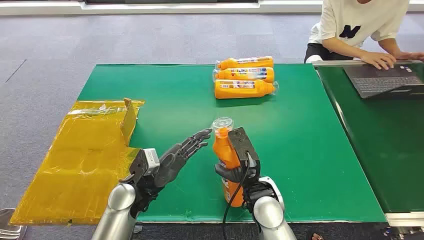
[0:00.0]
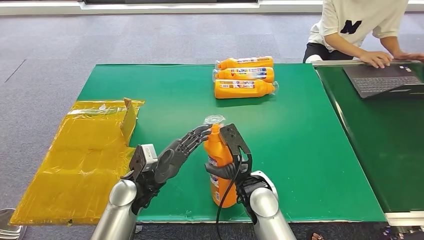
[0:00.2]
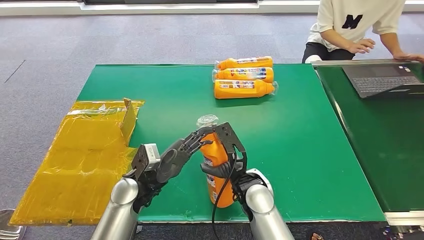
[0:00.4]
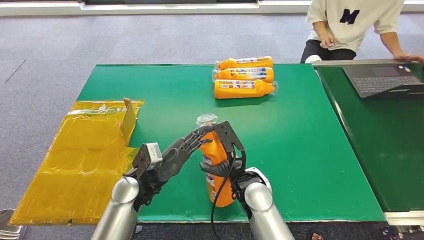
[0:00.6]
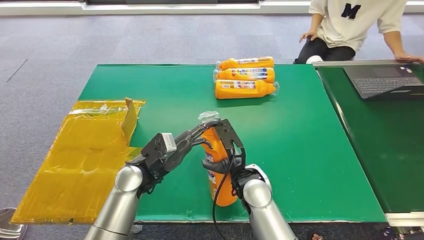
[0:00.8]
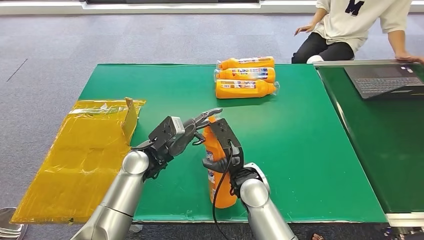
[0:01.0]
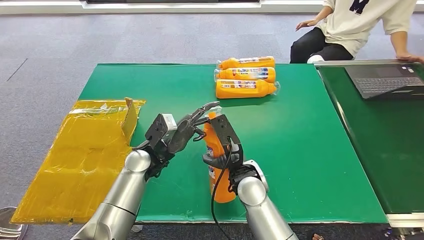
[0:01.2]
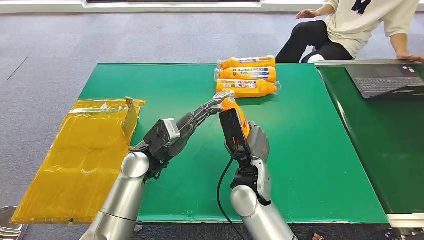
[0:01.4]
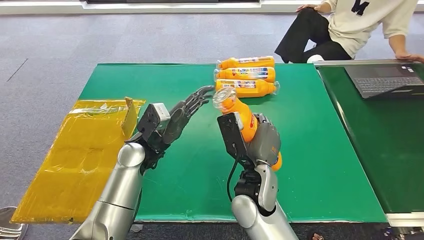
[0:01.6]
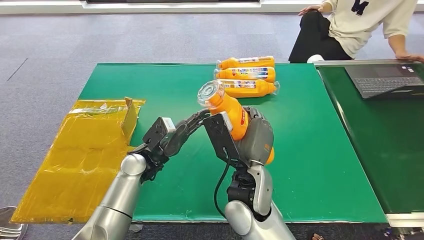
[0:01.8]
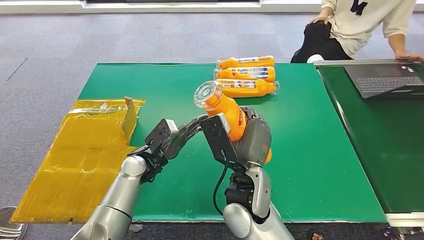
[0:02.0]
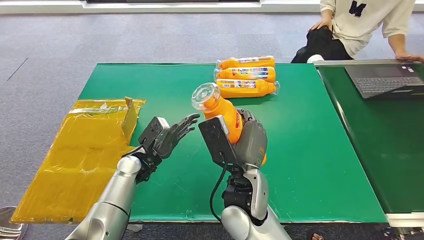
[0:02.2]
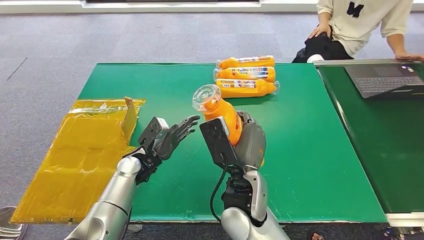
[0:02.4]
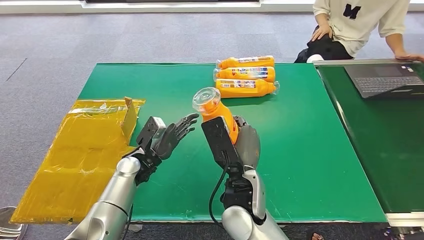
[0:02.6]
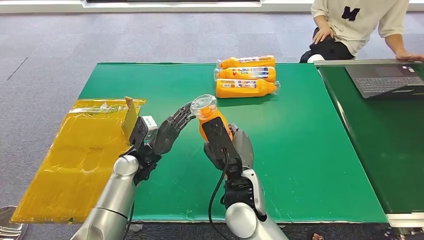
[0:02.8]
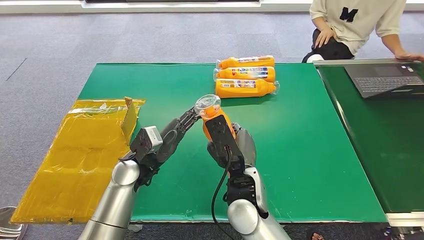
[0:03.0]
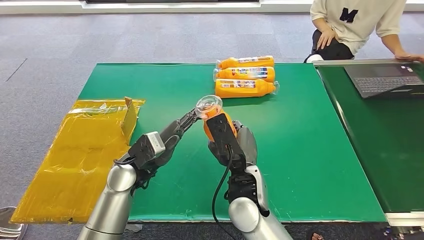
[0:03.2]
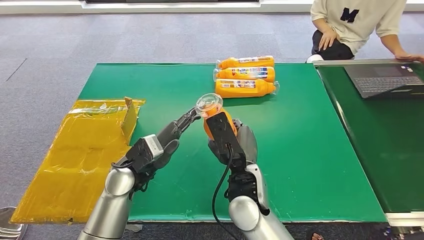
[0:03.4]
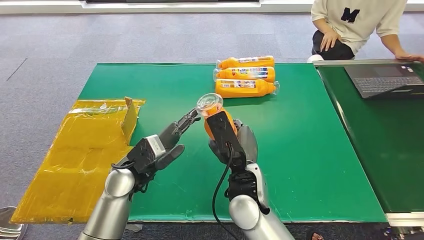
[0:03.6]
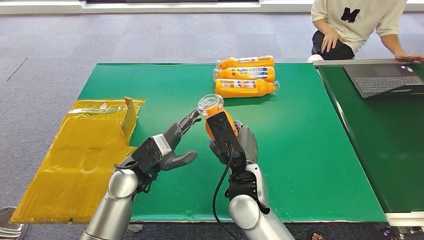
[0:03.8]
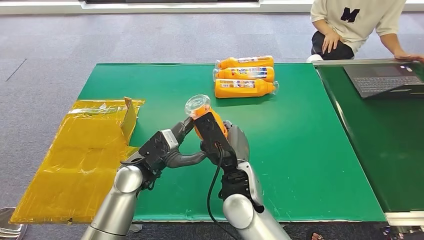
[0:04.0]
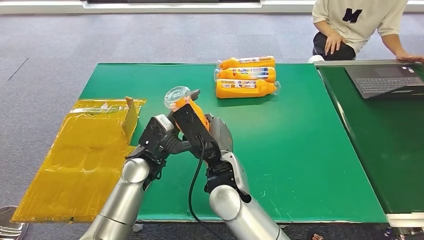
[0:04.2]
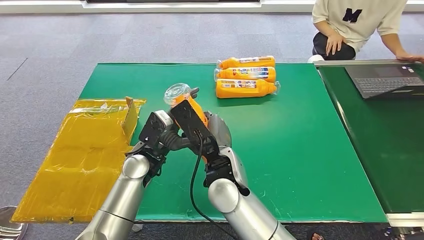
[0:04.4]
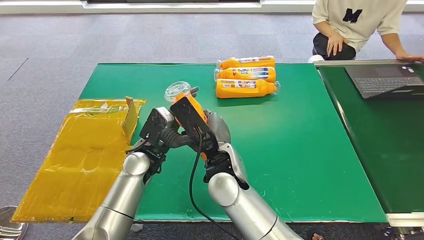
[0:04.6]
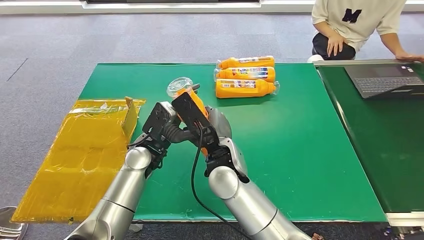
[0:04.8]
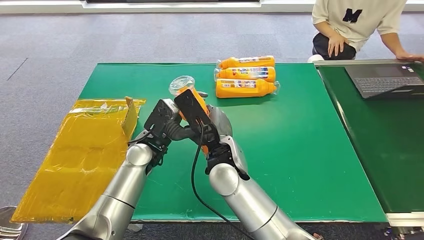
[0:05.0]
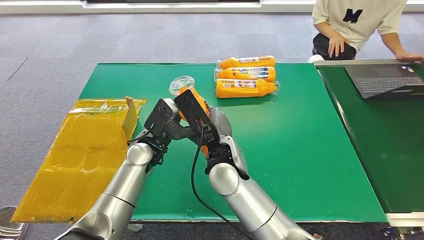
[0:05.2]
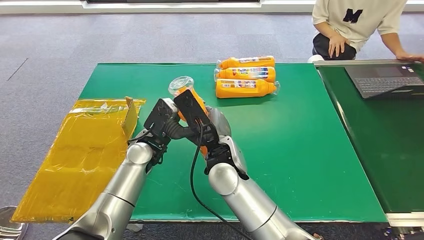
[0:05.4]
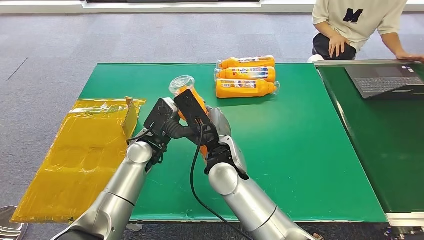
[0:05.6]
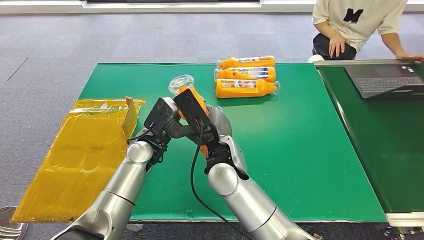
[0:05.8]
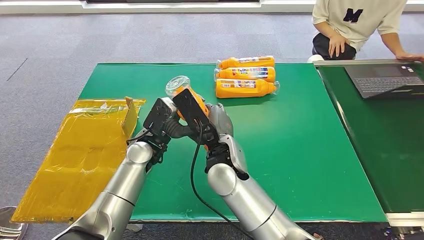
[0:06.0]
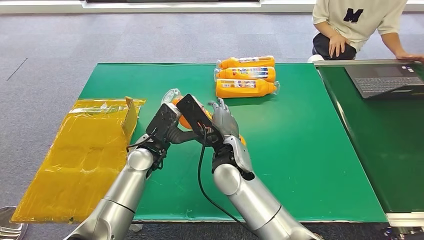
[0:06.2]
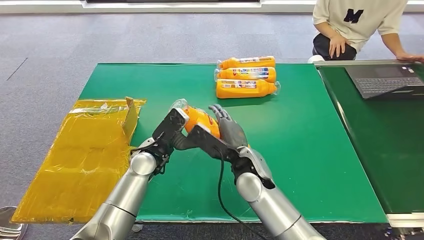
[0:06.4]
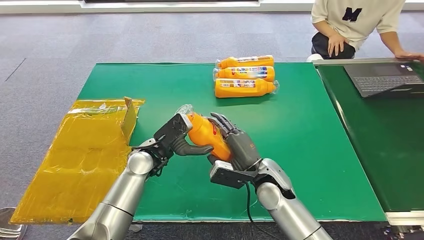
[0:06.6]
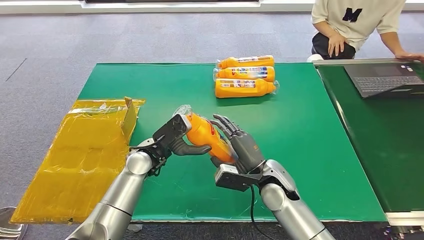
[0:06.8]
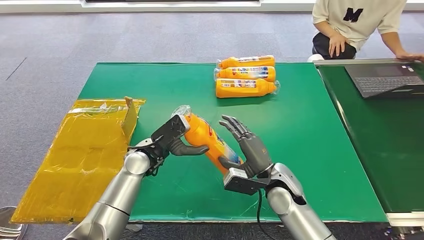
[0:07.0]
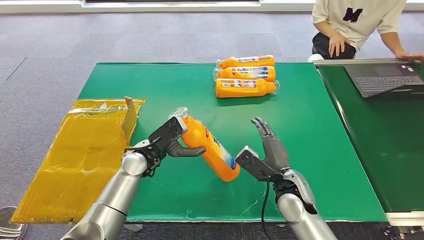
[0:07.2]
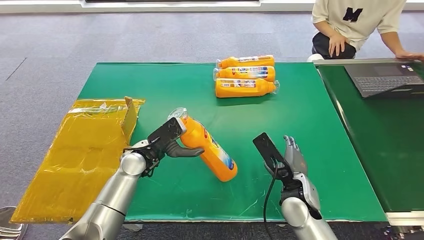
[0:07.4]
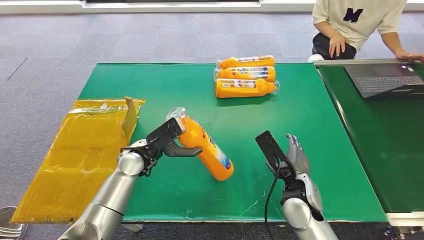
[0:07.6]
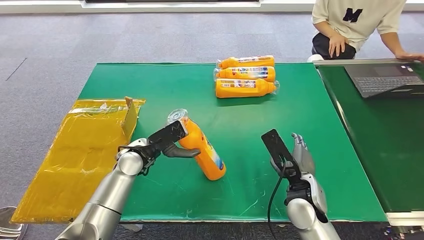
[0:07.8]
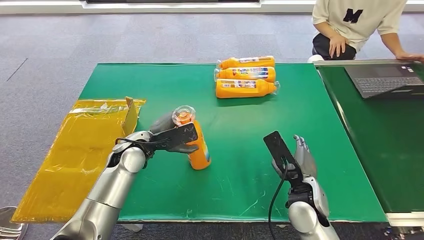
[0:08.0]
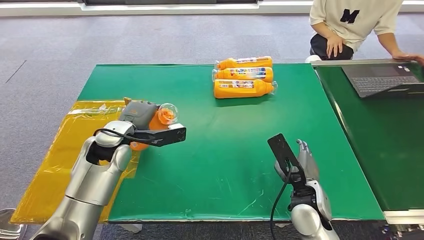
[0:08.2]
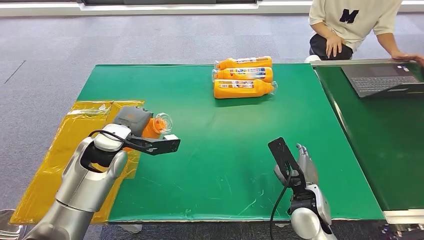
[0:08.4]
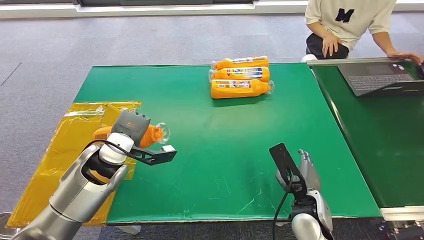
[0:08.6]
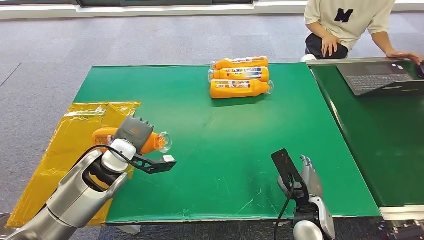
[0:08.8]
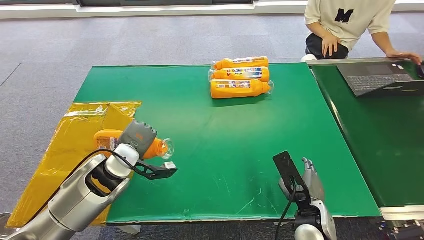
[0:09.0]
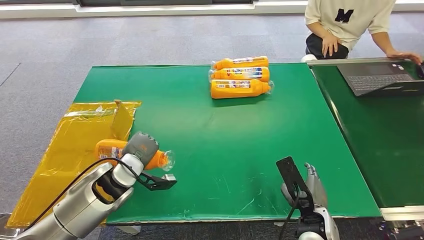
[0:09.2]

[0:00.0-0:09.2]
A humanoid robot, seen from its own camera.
Step, 0:00.0 to 0:01.4: Pick up the bottle from the table.
Step, 0:01.8 to 0:09.2: Turn the bottle to the front side.
0:03.0 to 0:04.6: The right hand travels to the left by some 5 cm.
0:04.6 to 0:06.2: The right hand ends up about 5 cm from where it was.
0:06.2 to 0:07.6: The right hand moves to the right and downward, approximately 20 cm.

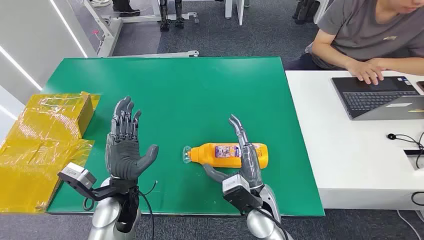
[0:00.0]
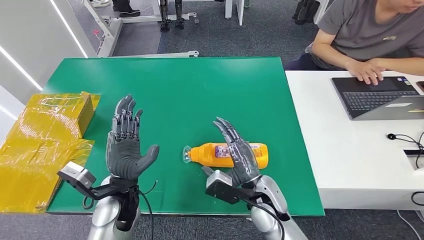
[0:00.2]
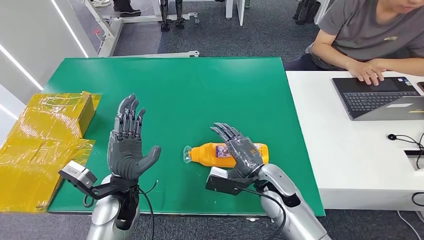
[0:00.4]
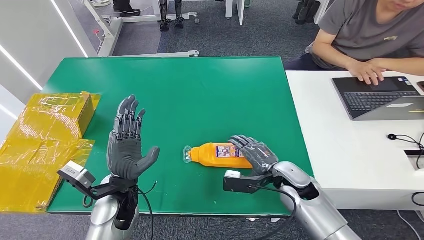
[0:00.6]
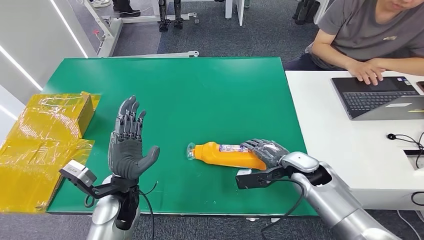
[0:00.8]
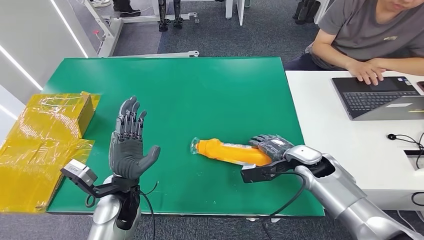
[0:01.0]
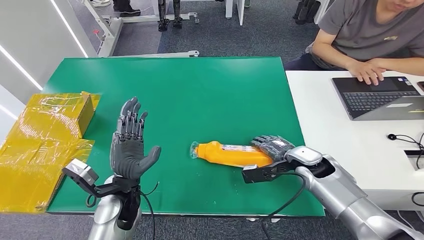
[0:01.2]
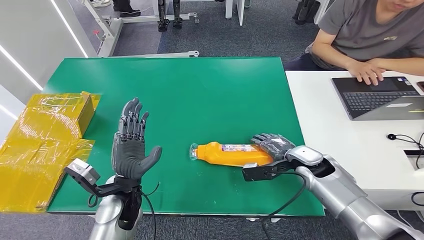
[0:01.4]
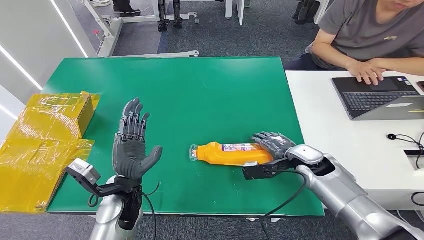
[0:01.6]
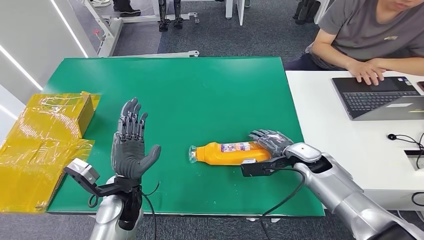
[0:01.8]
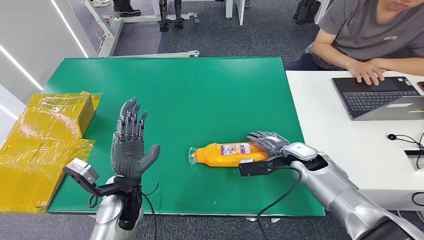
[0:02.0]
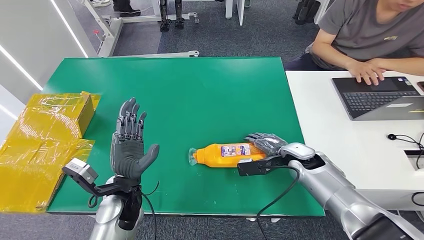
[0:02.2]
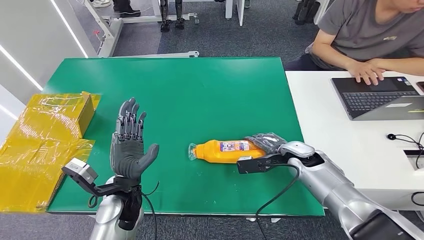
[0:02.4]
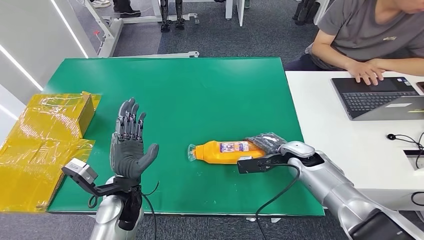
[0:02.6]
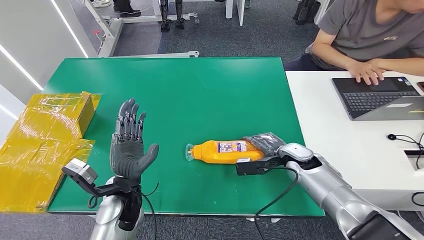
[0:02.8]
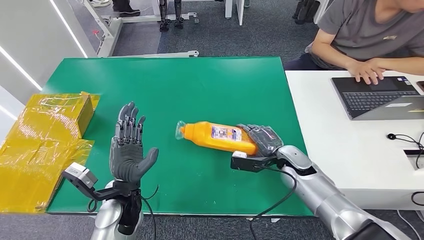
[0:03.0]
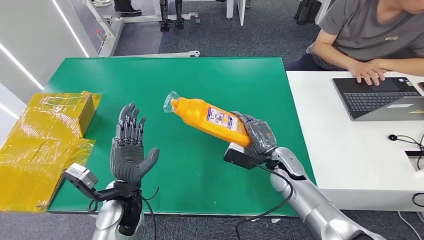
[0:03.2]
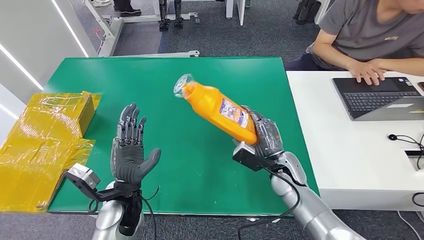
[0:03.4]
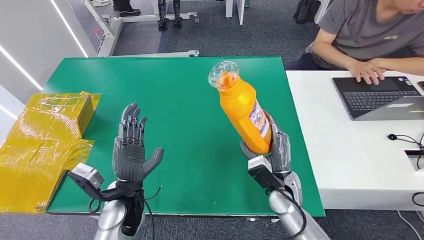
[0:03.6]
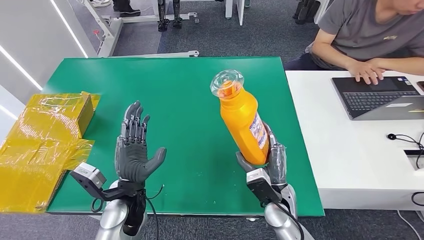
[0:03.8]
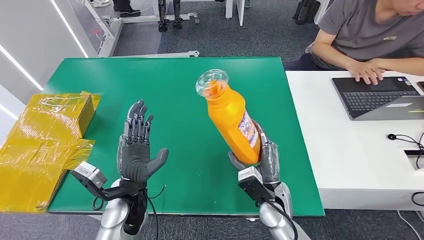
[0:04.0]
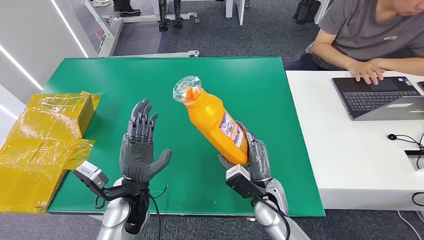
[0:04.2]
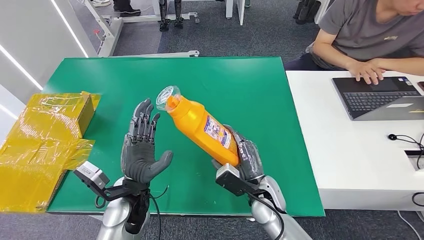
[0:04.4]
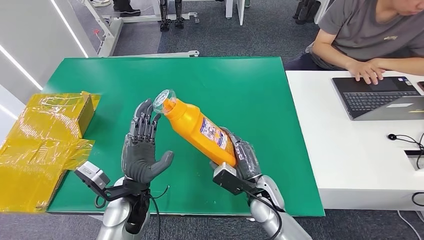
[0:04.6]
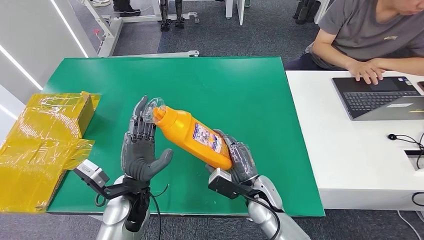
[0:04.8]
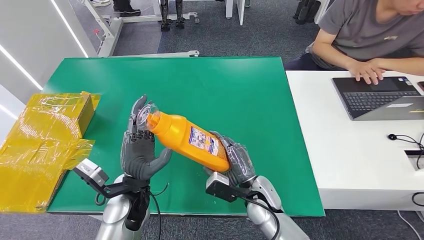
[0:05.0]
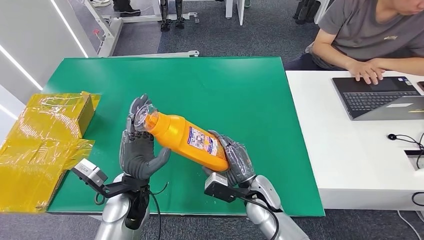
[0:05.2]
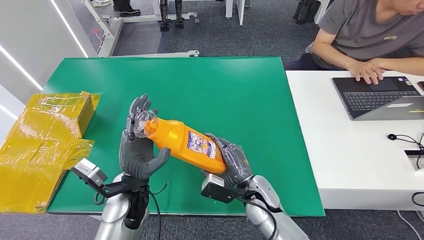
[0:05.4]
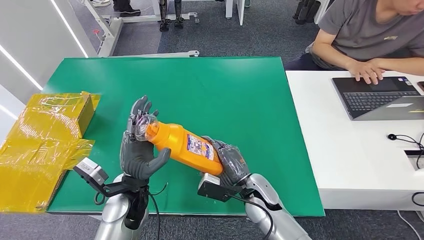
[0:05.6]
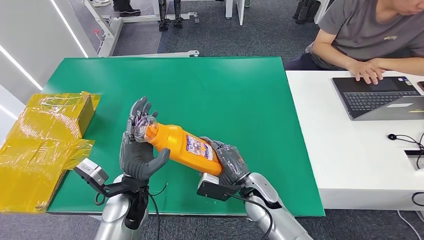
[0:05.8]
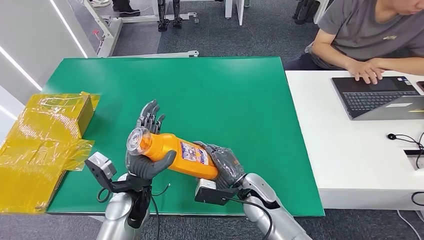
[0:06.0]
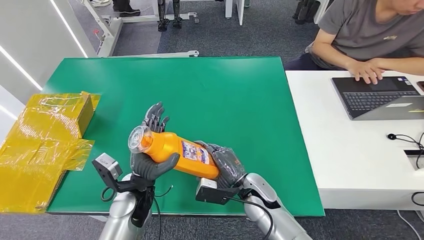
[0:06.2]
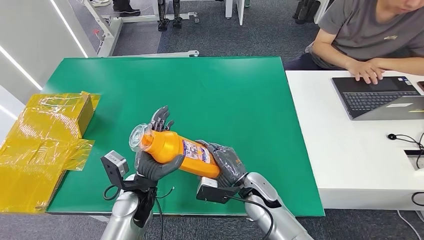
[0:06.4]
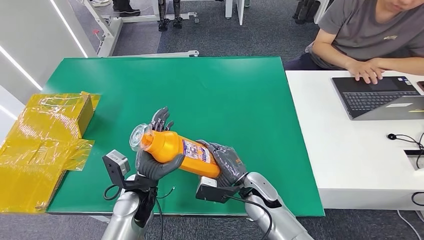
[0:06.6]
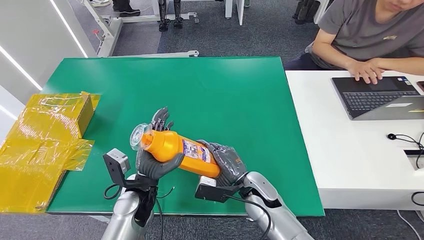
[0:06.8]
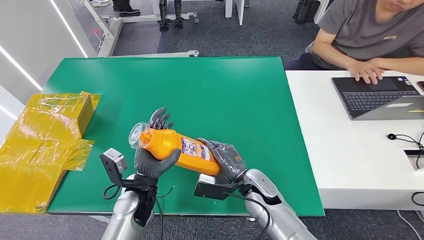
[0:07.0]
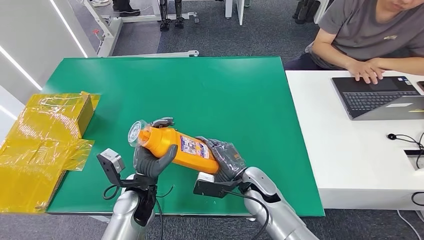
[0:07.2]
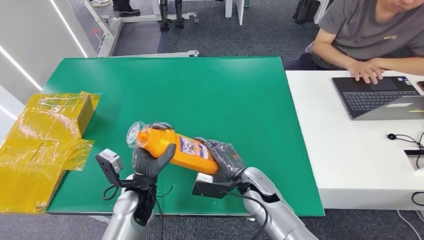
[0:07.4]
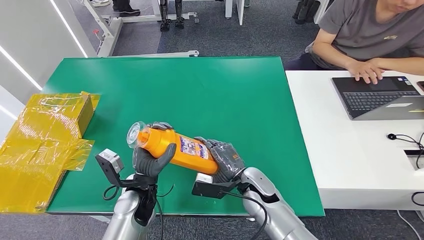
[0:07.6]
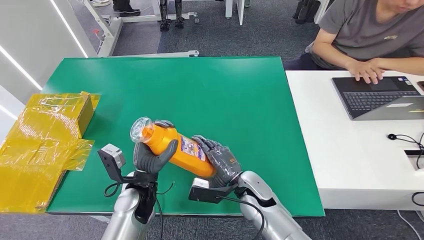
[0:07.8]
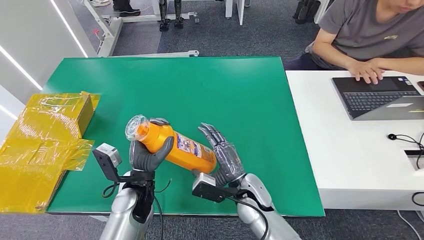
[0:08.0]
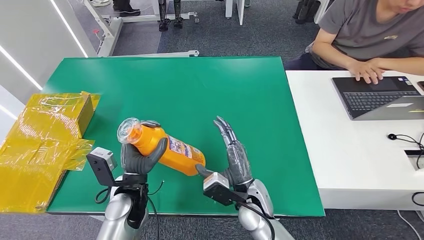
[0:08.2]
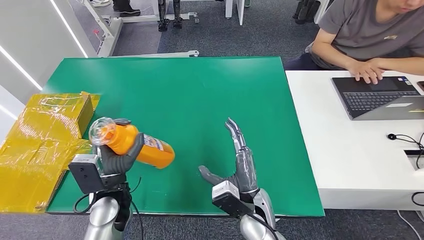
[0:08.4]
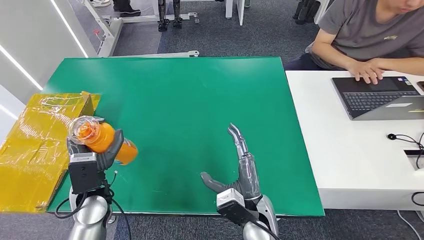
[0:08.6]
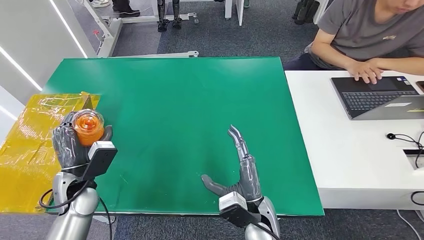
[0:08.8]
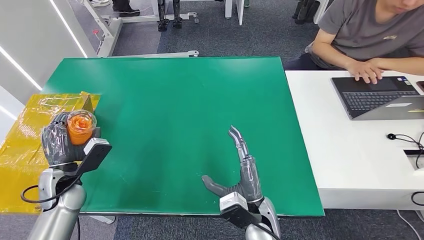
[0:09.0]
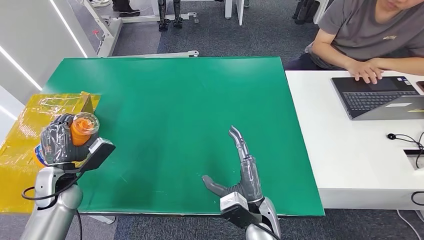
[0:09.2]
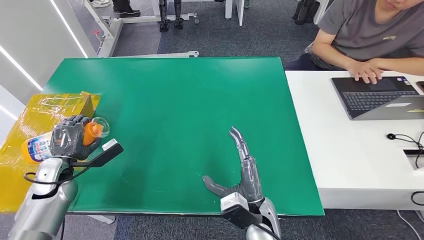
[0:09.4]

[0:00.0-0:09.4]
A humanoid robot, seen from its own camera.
Step, 0:00.0 to 0:03.6: Pick up the bottle from the table.
0:01.6 to 0:03.2: The right hand moves to the left, approximately 5 cm.
0:03.2 to 0:04.8: The right hand travels to the left and backward by roughly 10 cm.
0:04.8 to 0:06.2: The hands move only a little.
0:06.2 to 0:07.8: The hands move only a little.
0:07.8 to 0:09.4: The right hand goes roughly 10 cm backward, while the left hand goes roughly 25 cm to the left.
